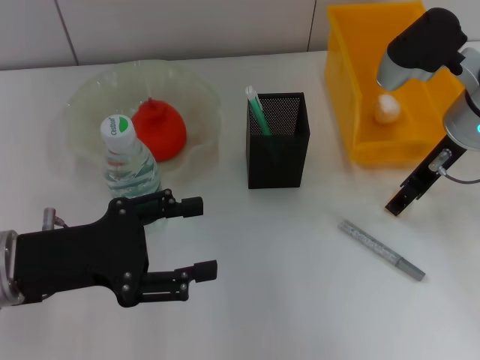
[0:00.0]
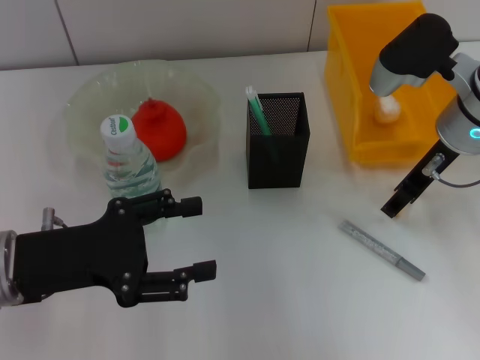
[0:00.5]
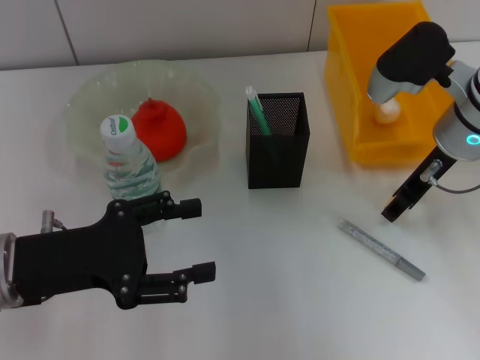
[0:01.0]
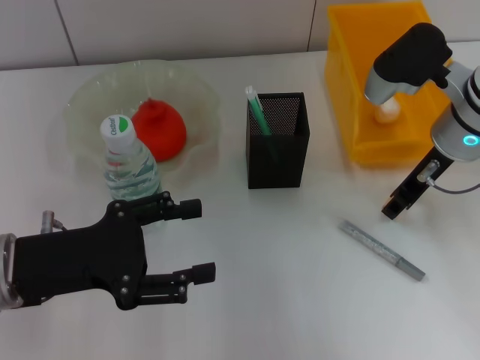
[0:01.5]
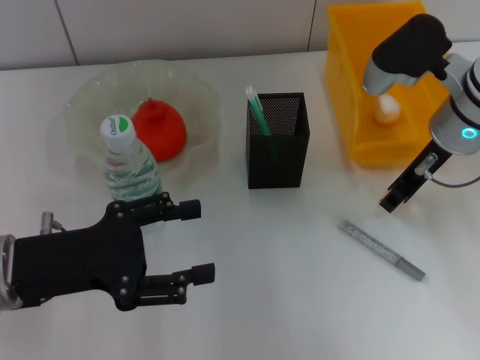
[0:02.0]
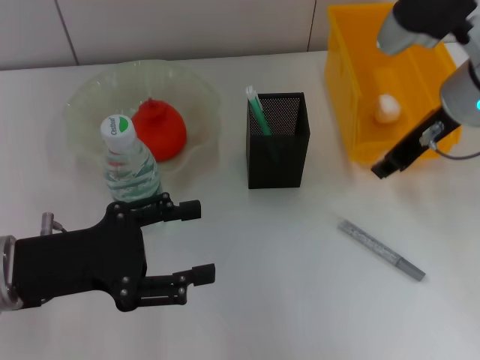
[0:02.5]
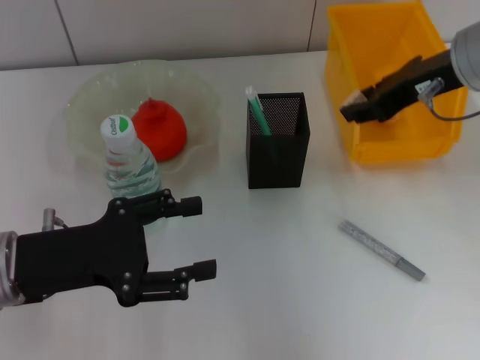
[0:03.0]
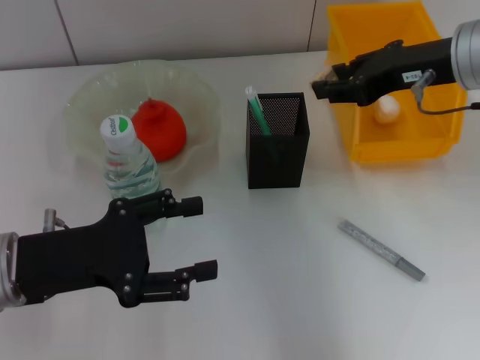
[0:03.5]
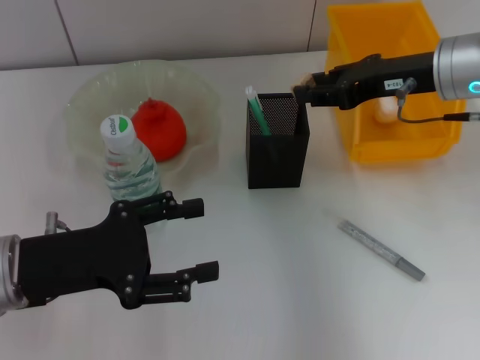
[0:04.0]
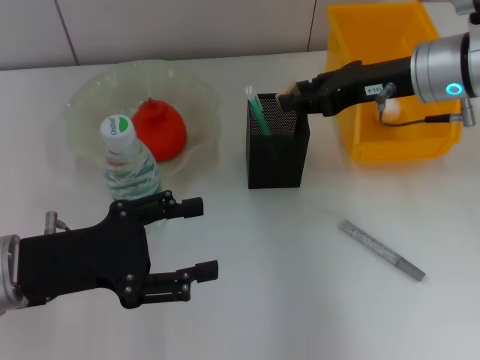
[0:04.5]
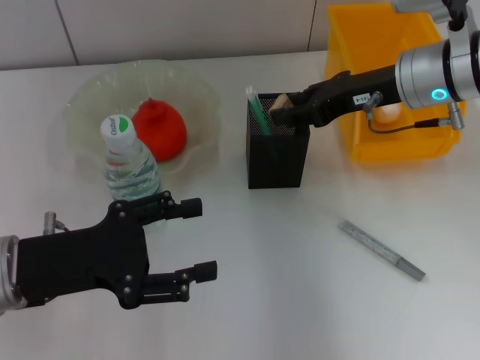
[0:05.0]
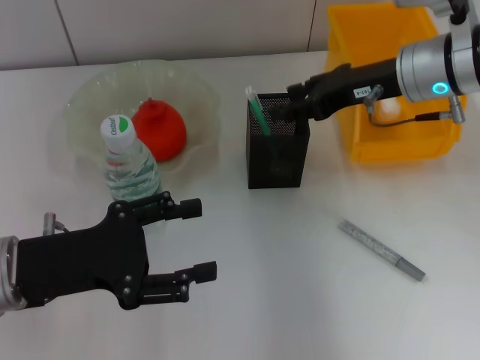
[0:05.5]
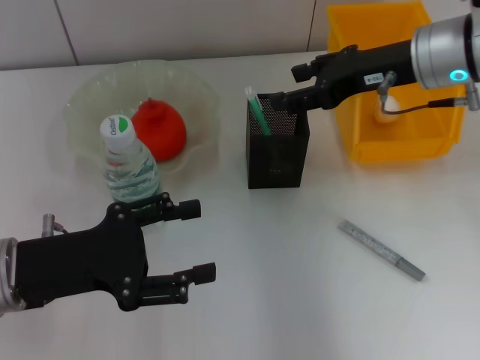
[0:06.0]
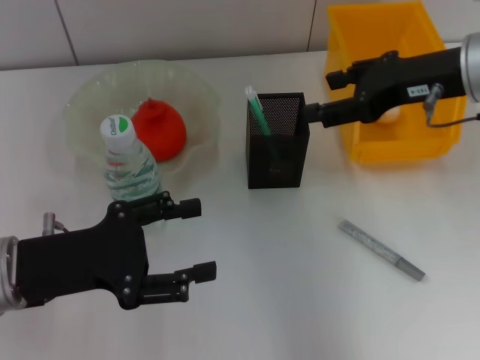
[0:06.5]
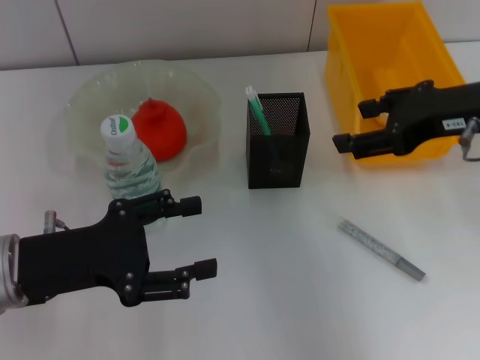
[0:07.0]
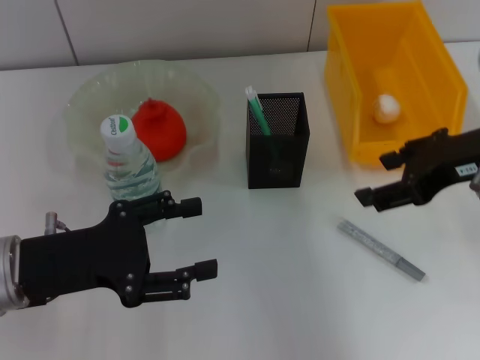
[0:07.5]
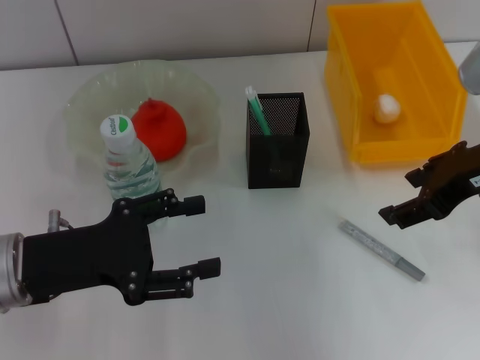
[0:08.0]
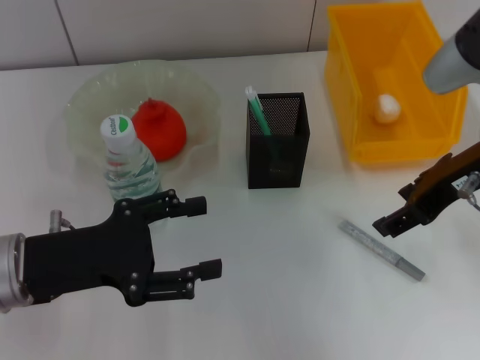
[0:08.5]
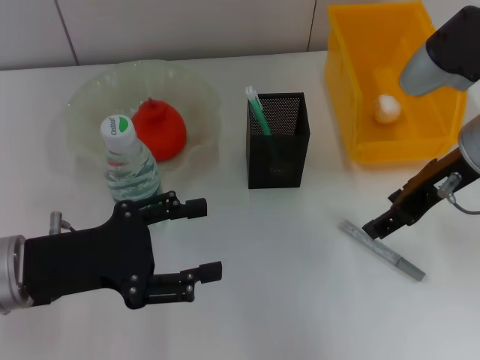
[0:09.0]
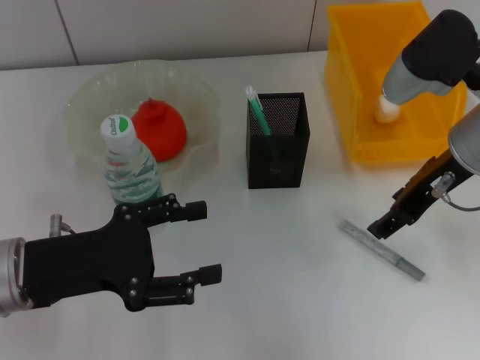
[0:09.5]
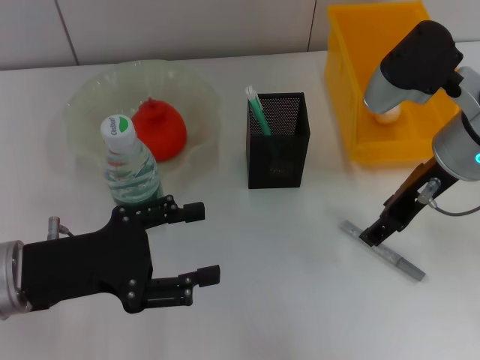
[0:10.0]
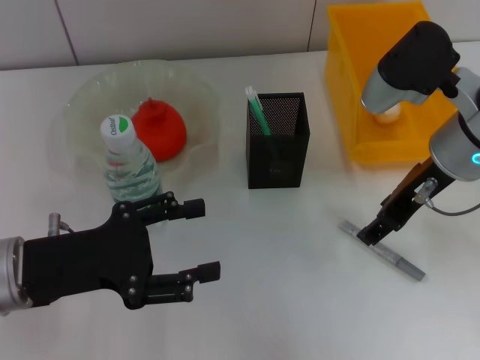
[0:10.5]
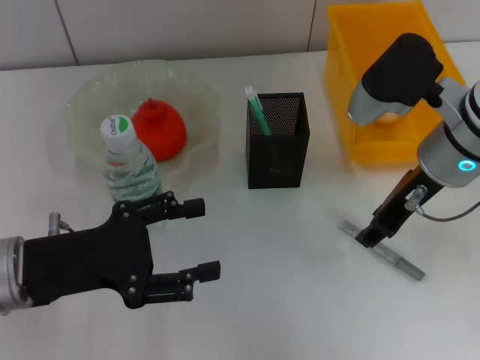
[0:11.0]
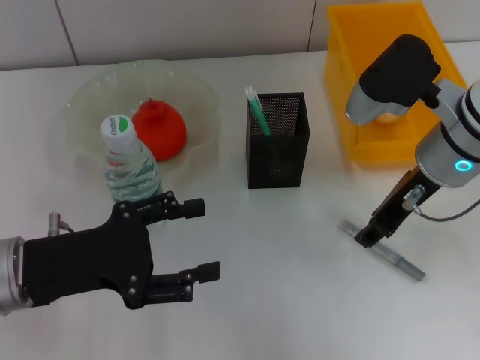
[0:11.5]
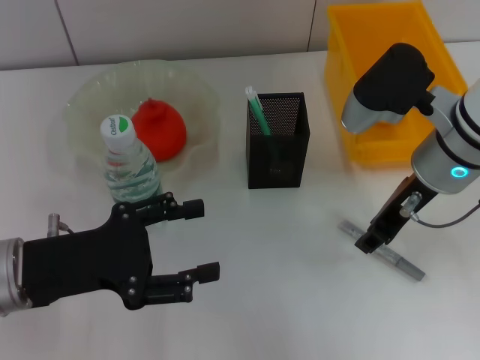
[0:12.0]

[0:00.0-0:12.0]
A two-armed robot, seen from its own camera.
Step, 0:01.0 to 0:05.5: Put the eraser into the pen holder with the right hand.
0:00.0 to 0:02.0: The right gripper closes up.
0:04.0 to 0:06.0: The right gripper opens its fingers.
0:06.0 to 0:08.0: The right gripper goes some 10 cm backward.
0:08.0 to 0:10.0: The right gripper moves approximately 5 cm.
0:10.0 to 0:12.0: The right gripper closes its fingers.

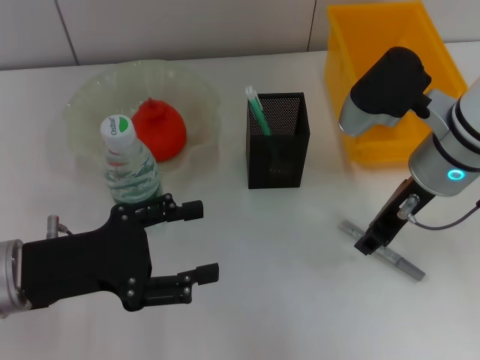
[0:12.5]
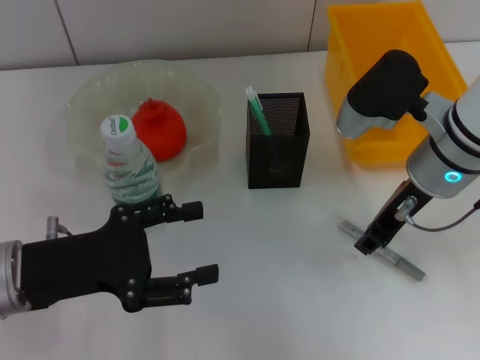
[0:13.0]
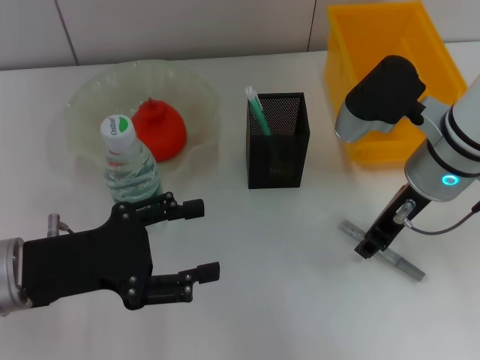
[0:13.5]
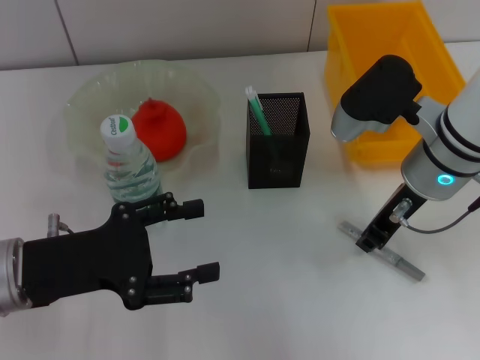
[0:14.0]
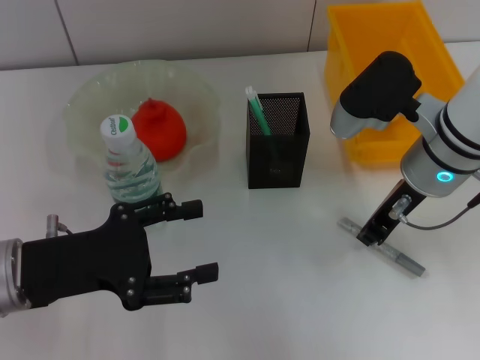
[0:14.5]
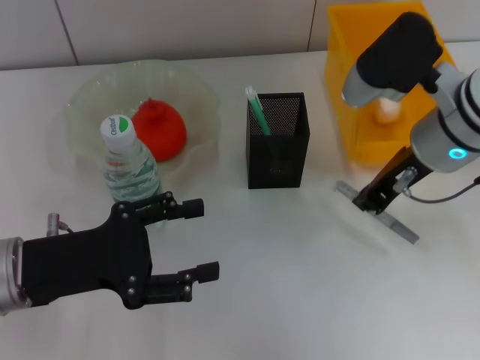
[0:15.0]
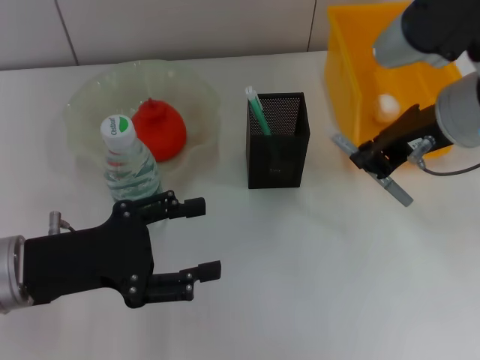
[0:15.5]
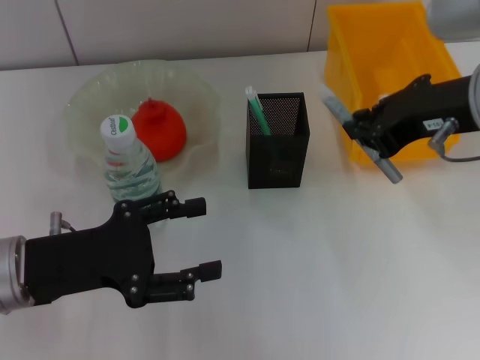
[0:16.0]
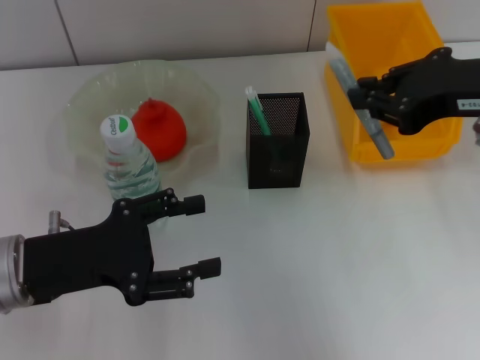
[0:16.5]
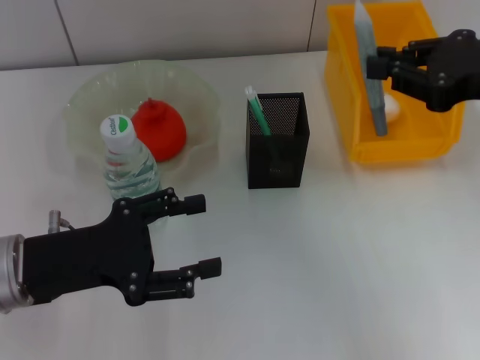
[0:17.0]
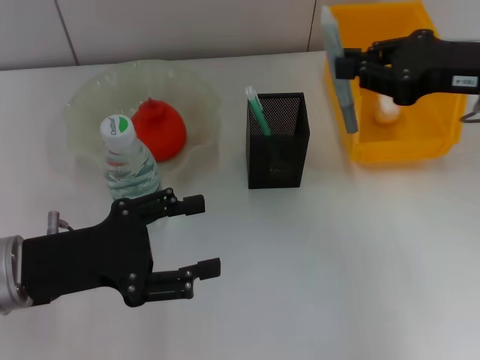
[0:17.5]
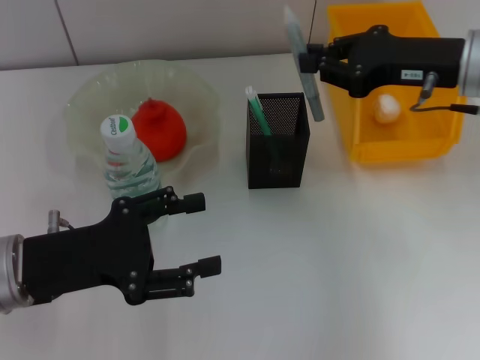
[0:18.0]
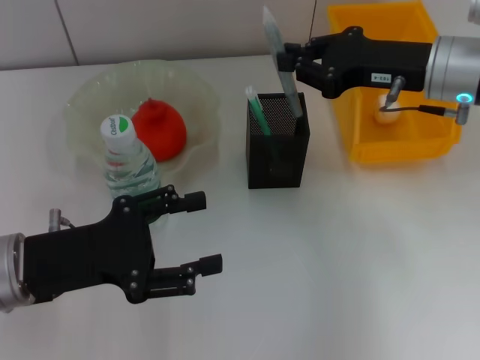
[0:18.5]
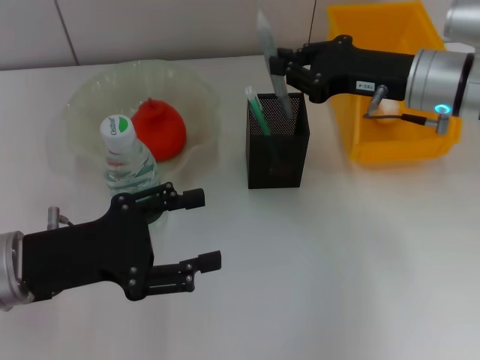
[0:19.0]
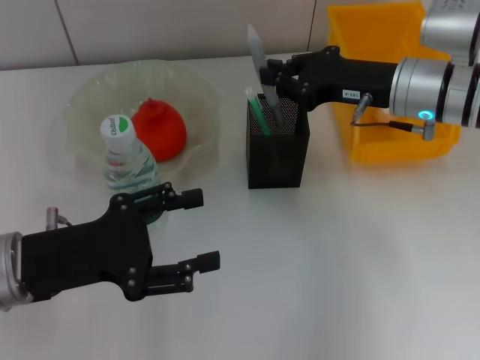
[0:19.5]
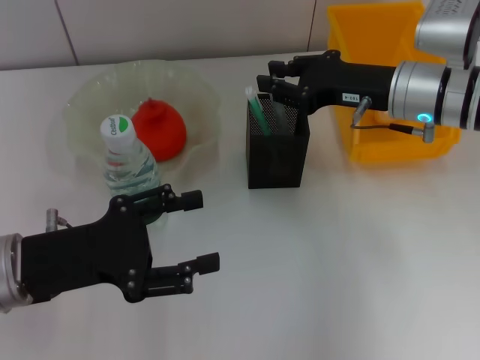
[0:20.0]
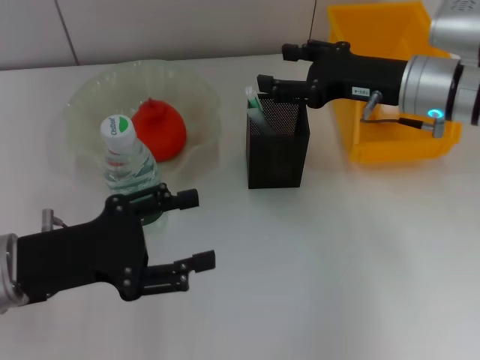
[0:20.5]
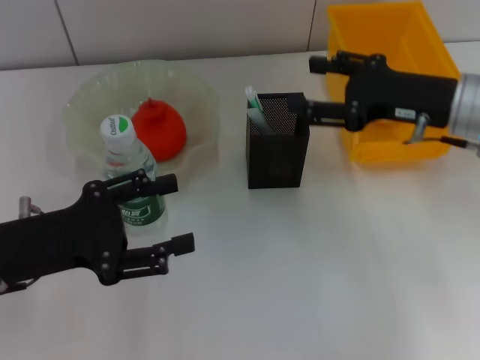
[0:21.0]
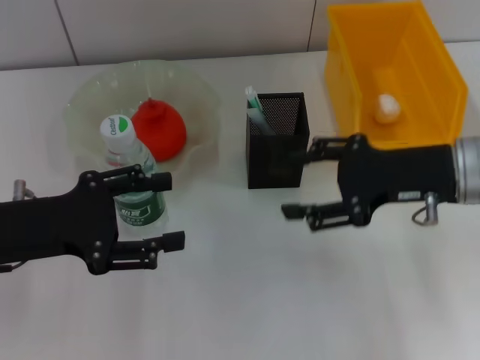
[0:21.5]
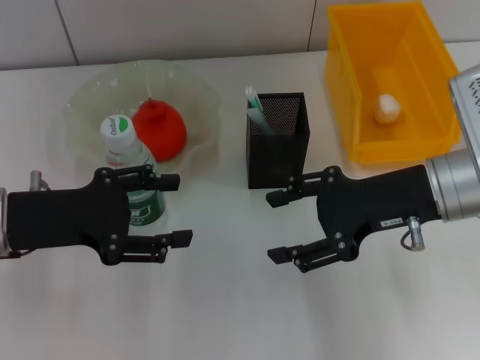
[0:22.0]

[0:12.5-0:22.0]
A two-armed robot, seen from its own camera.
Step, 0:14.0 to 0:20.0: Place the gray glue into the pen holder with the right hand.
0:12.5 to 0:14.5: The right gripper closes up.
0:14.5 to 0:16.5: The right gripper moves upward, backward and to the right, approximately 15 cm.
0:16.5 to 0:18.0: The right gripper travels forward and downward by roughly 10 cm.
0:18.0 to 0:20.0: The right gripper is displaced downward by about 5 cm.
0:20.0 to 0:22.0: The right gripper moves backward, some 10 cm, and opens its fingers. The left gripper moves approximately 5 cm.
